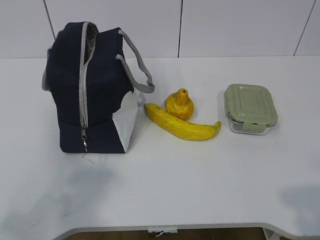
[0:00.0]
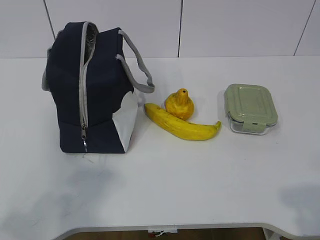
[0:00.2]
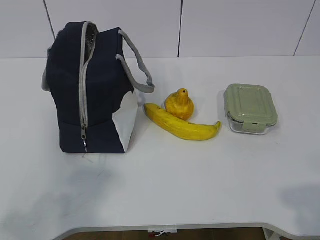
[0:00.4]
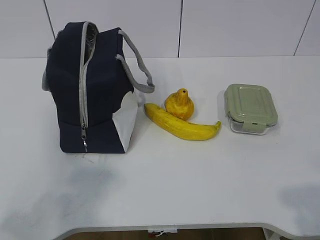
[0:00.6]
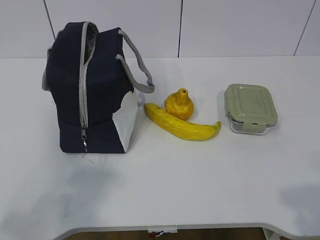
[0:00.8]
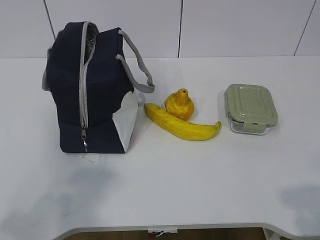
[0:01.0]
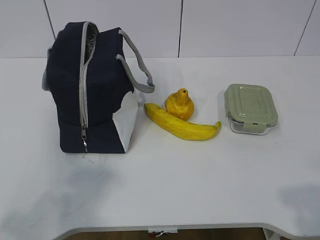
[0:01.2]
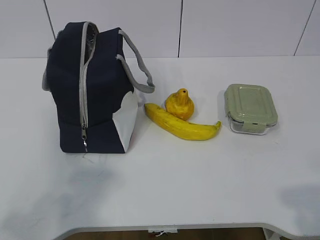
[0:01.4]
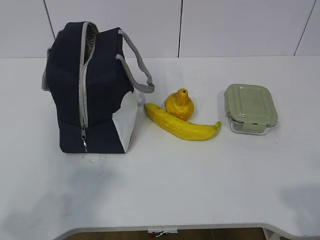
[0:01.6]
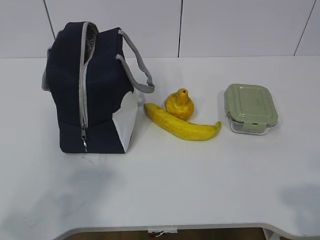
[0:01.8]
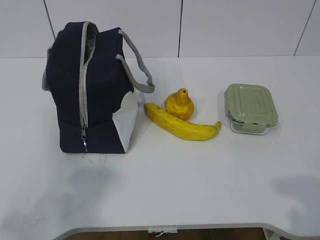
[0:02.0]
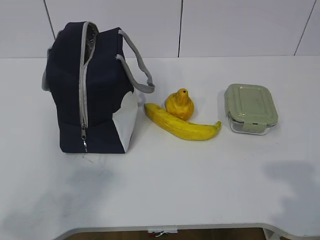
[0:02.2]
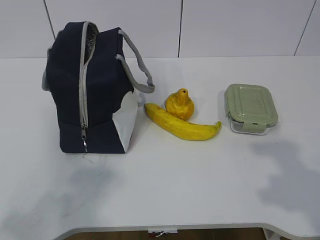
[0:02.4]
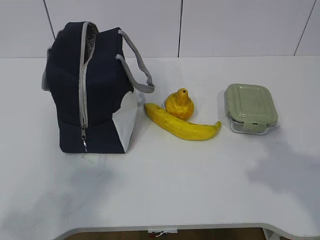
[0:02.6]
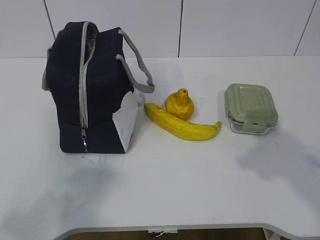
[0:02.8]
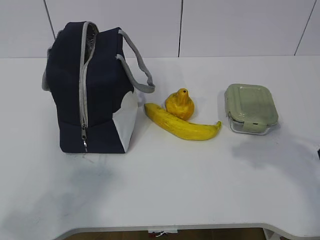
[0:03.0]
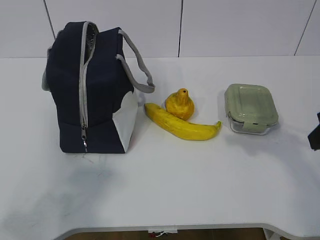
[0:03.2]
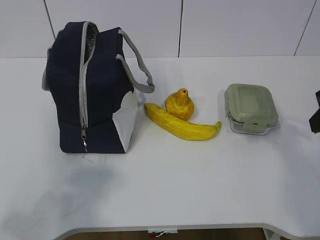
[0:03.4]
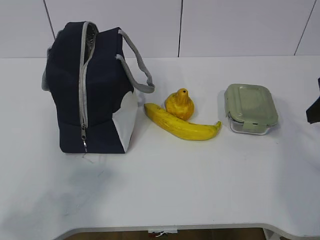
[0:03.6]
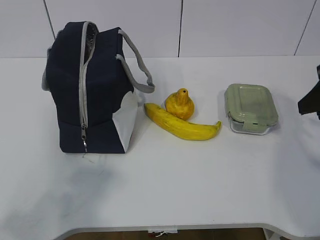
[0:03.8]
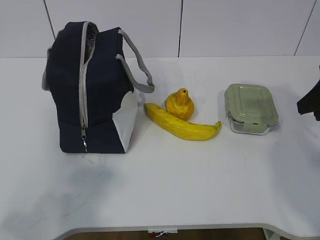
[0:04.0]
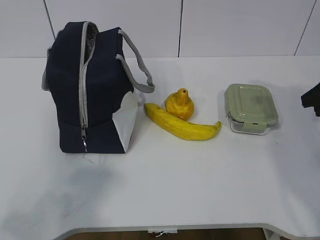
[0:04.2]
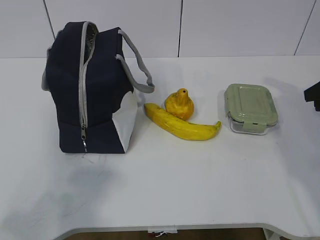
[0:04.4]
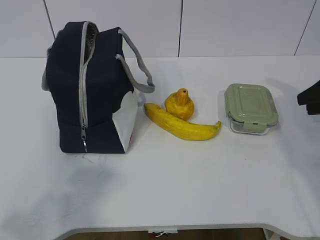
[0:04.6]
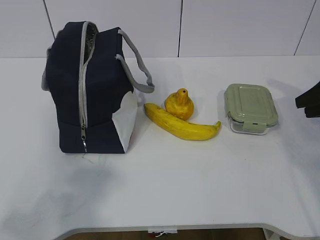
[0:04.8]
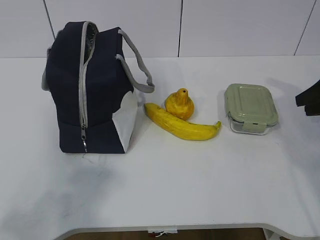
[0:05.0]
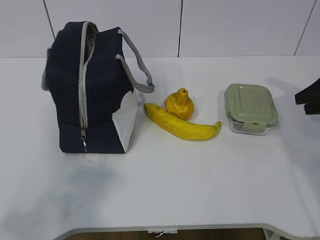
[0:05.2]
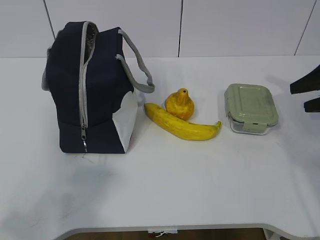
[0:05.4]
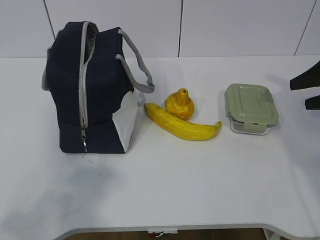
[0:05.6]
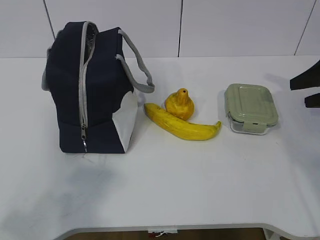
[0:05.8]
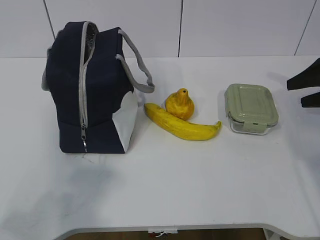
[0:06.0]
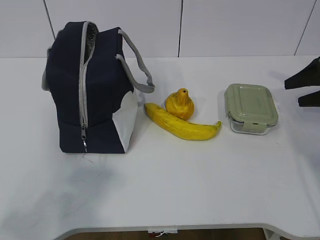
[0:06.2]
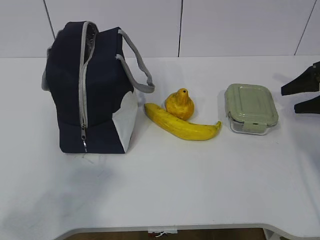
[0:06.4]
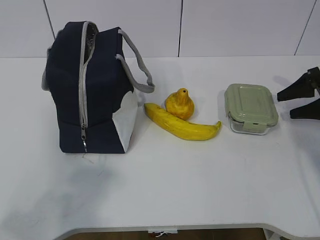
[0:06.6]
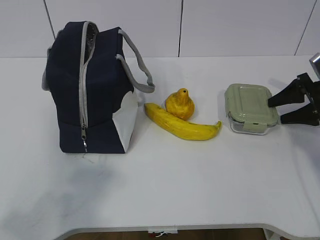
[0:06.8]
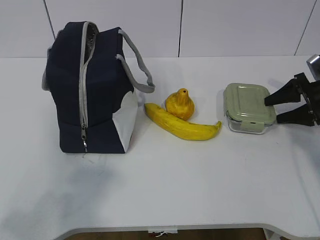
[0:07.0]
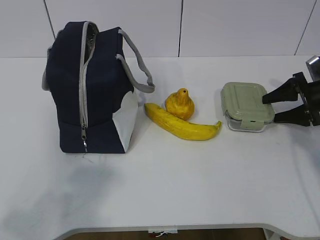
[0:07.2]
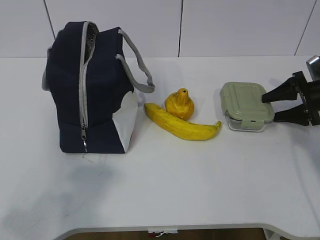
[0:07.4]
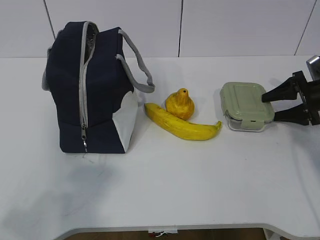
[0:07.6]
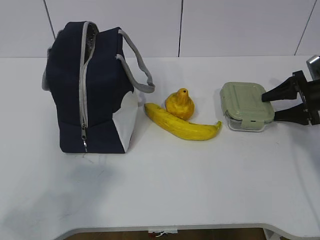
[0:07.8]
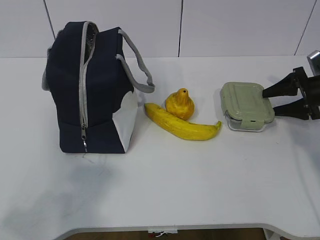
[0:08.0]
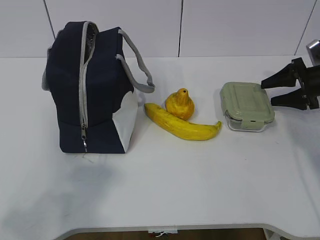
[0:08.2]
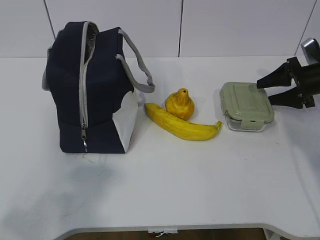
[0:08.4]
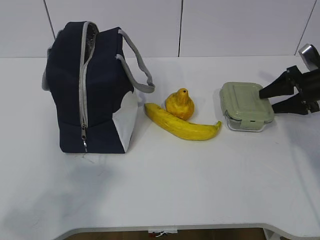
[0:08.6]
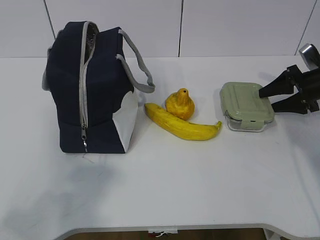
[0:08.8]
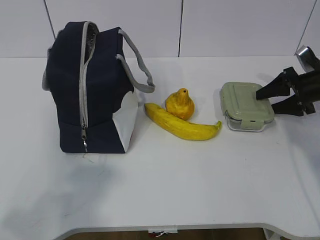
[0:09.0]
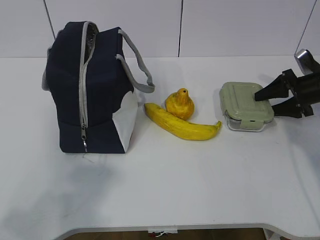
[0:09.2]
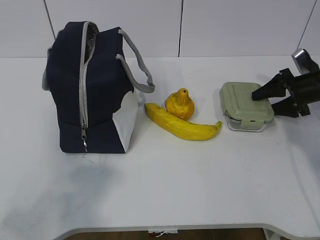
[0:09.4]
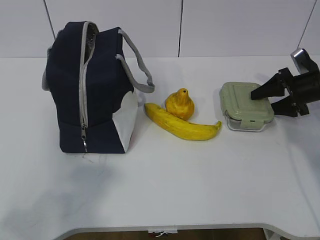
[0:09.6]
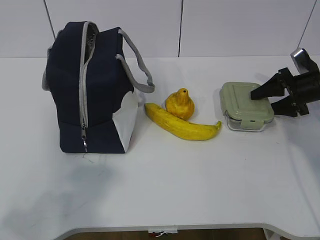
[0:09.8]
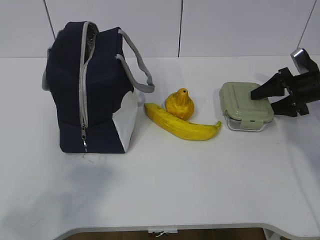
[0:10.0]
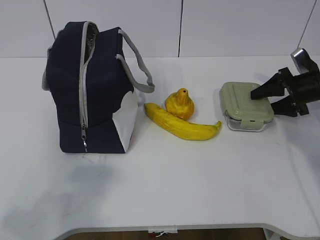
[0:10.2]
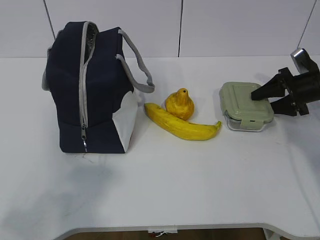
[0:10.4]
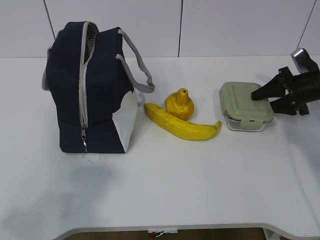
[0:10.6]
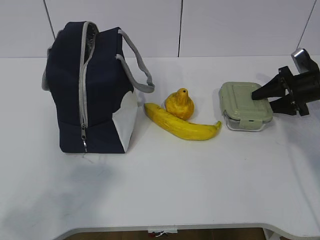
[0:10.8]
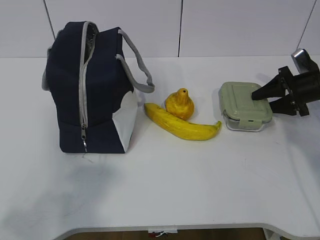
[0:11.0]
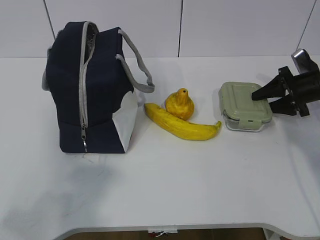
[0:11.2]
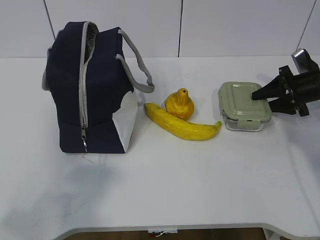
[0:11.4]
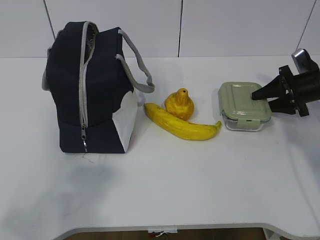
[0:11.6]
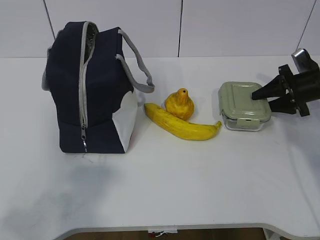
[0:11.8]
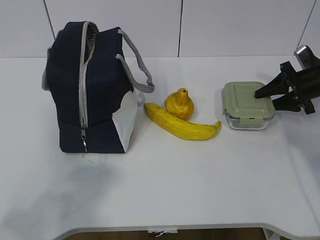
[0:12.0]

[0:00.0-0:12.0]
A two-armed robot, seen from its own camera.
Step, 0:00.0 to 0:09.8: Grab the lunch box with your right hand.
0:01.6 to 0:03.0: The right gripper heads forward, covering about 20 cm.
0:03.0 to 0:04.4: The right gripper is displaced forward and to the right by roughly 15 cm.
0:04.4 to 0:06.0: The right gripper goes some 5 cm forward, and opens.
0:06.0 to 0:07.6: The right gripper travels downward by some 10 cm.
0:07.6 to 0:09.0: The grippers make only small movements.
0:09.0 to 0:10.4: The two grippers keep their place.
0:10.4 to 0:12.0: The grippers stay close to where they were, moving slightly.

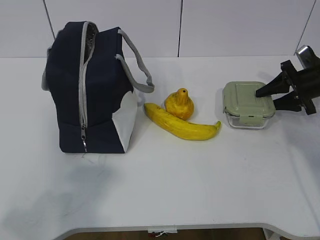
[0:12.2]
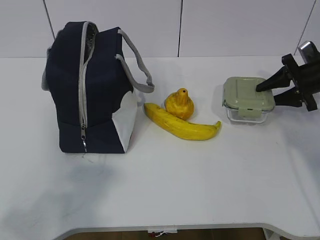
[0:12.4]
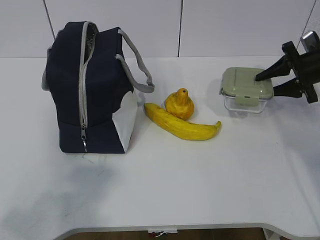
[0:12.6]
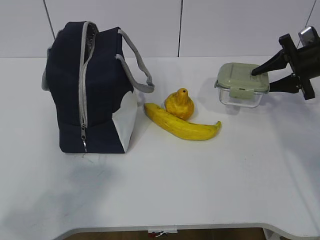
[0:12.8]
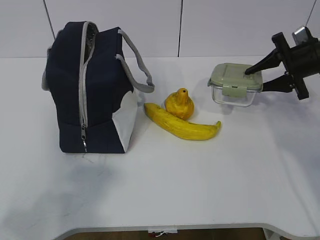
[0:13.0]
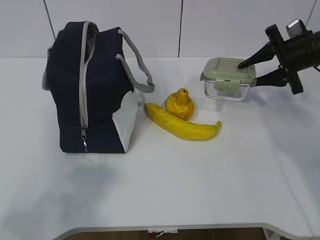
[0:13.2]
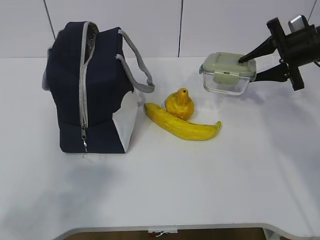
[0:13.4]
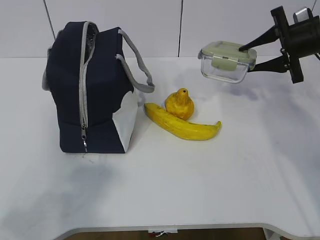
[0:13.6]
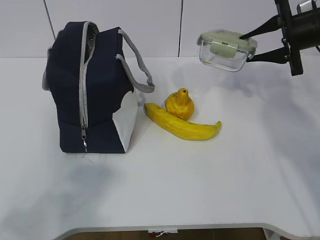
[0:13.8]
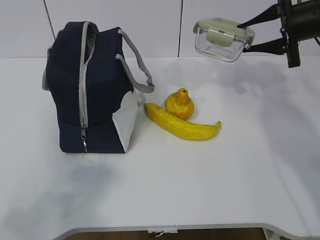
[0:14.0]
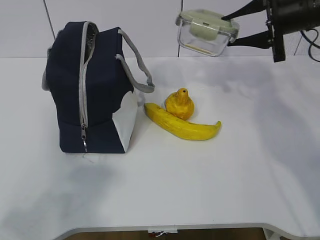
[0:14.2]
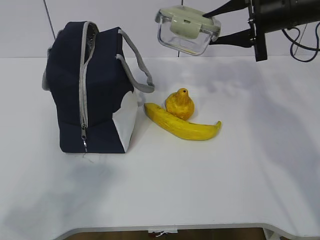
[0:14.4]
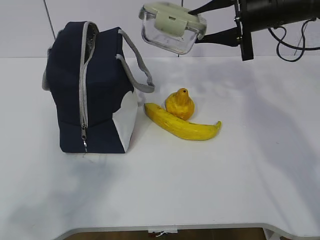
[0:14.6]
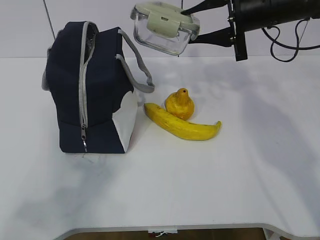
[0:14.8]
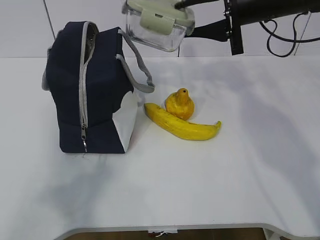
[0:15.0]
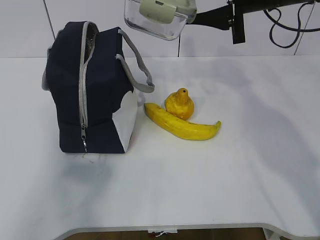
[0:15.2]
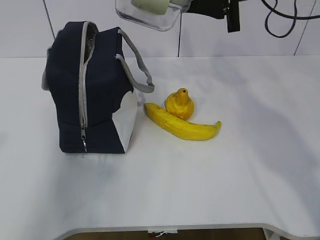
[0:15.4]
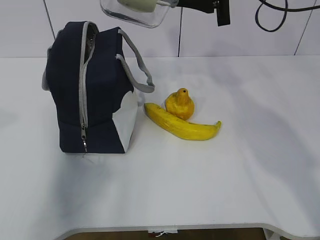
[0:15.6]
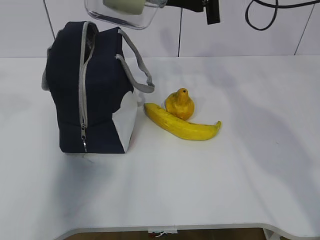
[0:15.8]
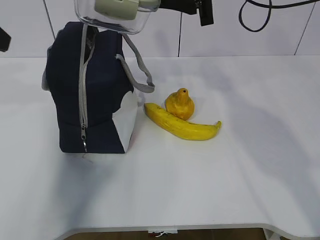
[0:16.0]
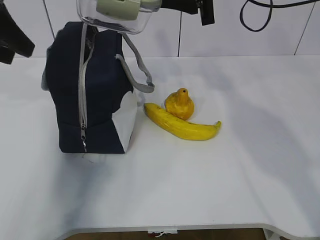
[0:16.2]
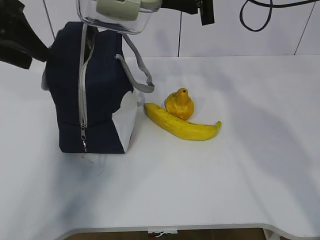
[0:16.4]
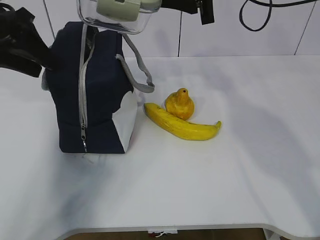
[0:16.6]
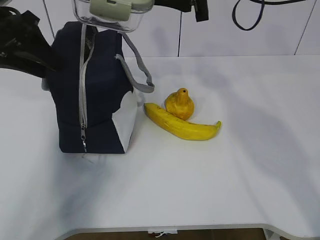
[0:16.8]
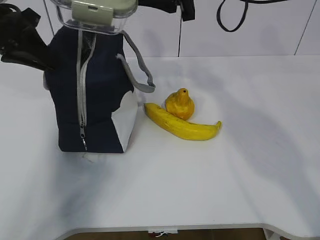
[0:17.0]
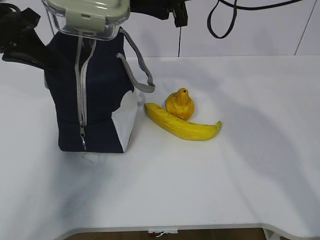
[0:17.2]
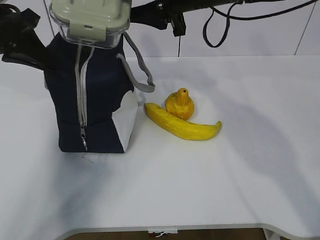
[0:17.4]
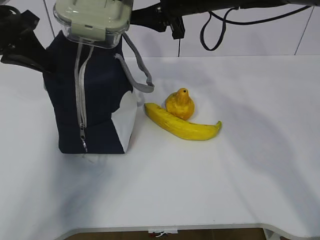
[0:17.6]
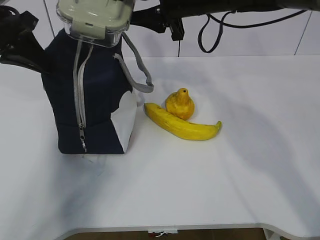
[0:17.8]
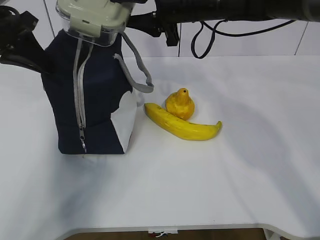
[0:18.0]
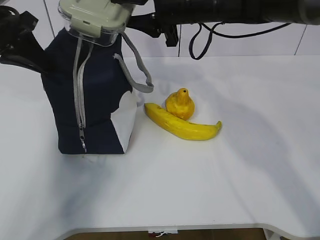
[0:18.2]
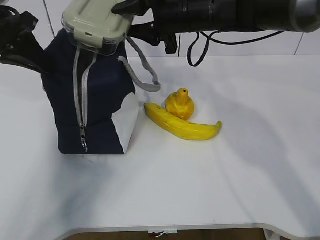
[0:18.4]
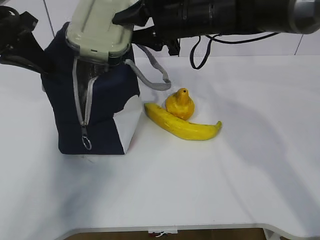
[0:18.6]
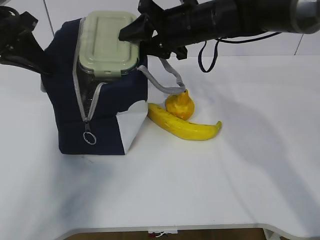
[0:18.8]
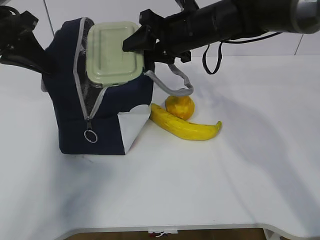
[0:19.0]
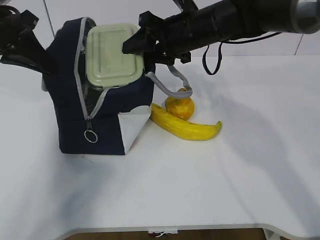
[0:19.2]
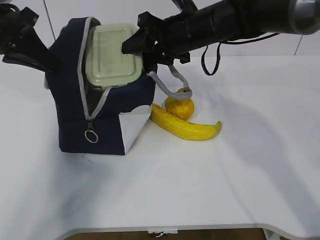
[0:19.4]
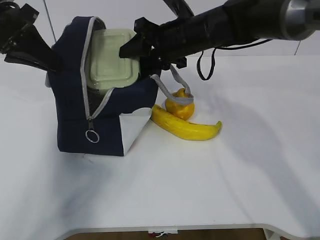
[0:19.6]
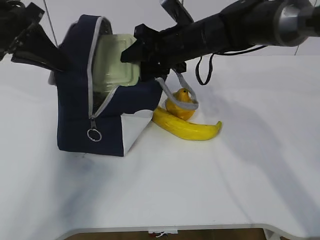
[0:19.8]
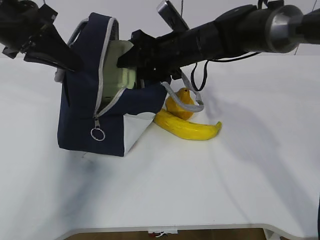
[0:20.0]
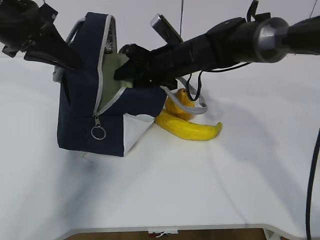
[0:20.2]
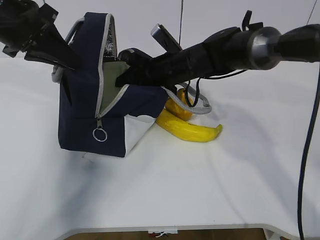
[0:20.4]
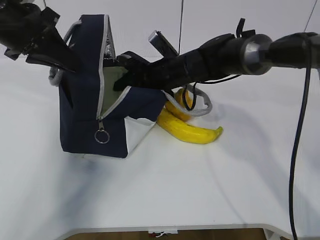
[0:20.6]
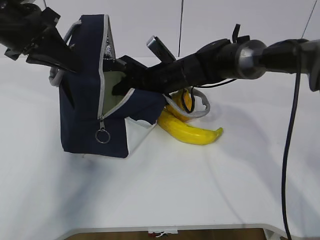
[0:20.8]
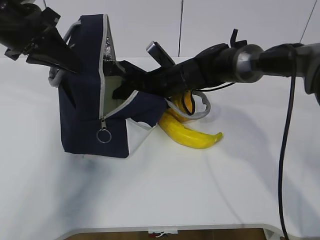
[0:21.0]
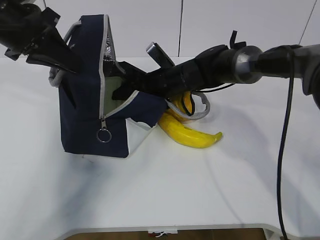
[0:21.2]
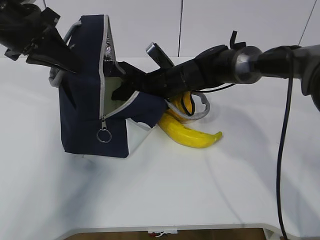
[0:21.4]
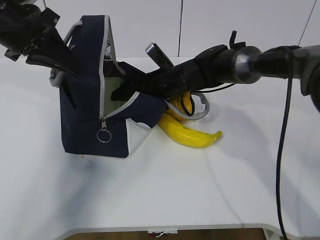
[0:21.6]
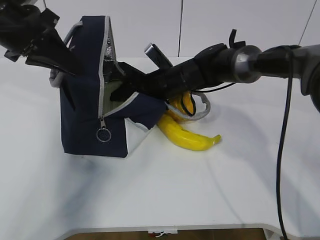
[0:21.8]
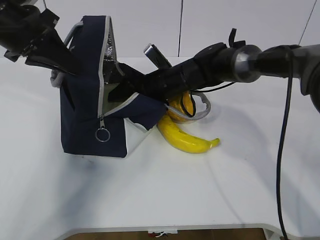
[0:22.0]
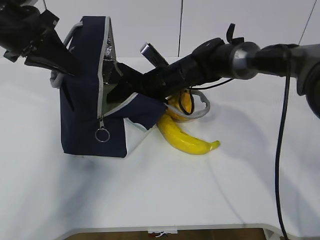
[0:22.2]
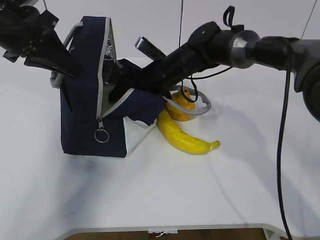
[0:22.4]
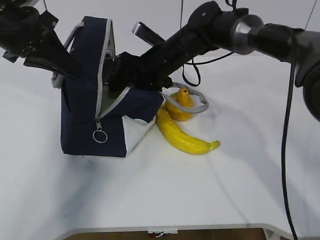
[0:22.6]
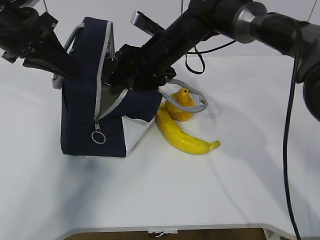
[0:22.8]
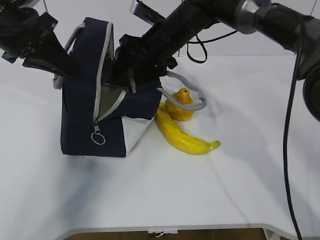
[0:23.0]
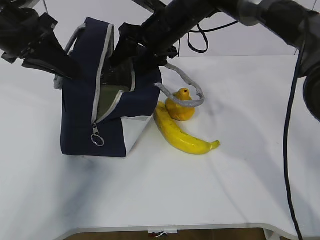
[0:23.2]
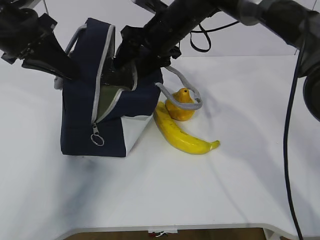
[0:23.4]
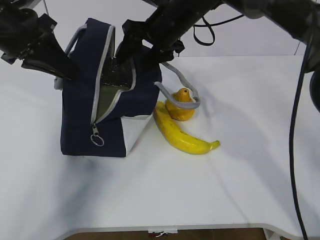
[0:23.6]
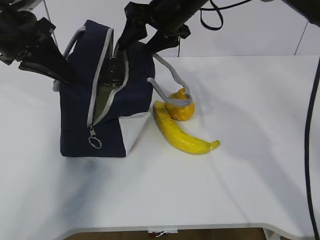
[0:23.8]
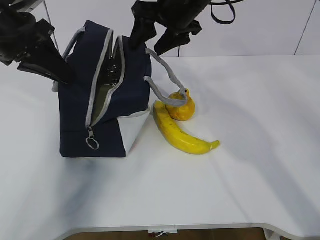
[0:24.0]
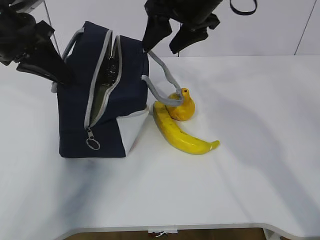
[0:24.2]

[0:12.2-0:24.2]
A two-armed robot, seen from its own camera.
Step, 0:12.2 to 0:15.2: Grab the lunch bag with your left hand.
Step, 0:15.4 to 0:18.0: Place it into the bag with your right hand.
Step, 0:18.4 to 0:23.0: Grab the banana with your right hand.
0:12.2 to 0:13.8: The right gripper goes approximately 15 cm upward and to the left.
0:13.8 to 0:15.2: The right gripper shifts approximately 15 cm to the left and upward, while the left gripper shifts roughly 5 cm forward.
0:15.2 to 0:16.6: The left gripper shifts approximately 30 cm forward. Meanwhile the right gripper travels to the left by approximately 5 cm.
0:16.6 to 0:18.2: The left gripper closes up. Meanwhile the right gripper goes some 10 cm downward and to the left.
0:18.2 to 0:19.8: The right gripper shifts approximately 5 cm downward.
0:19.8 to 0:21.2: The right gripper is displaced downward by approximately 10 cm.
0:21.2 to 0:22.6: The right gripper shifts some 5 cm upward.
0:22.6 to 0:24.2: The right gripper heads upward, covering approximately 15 cm.
